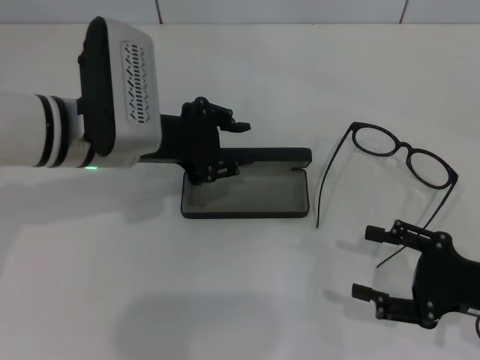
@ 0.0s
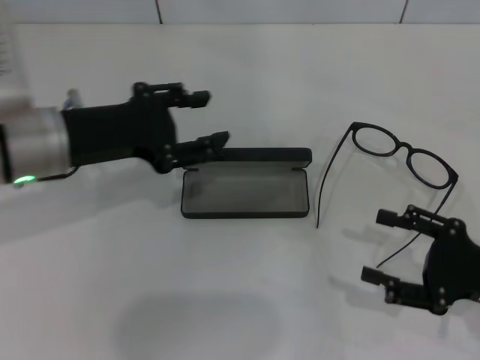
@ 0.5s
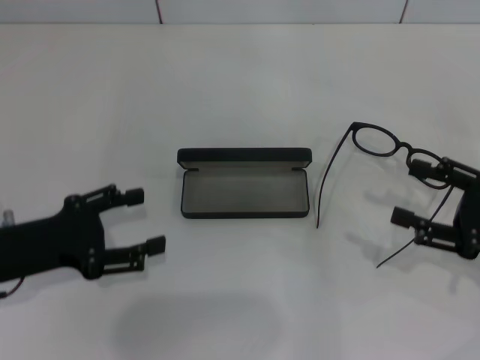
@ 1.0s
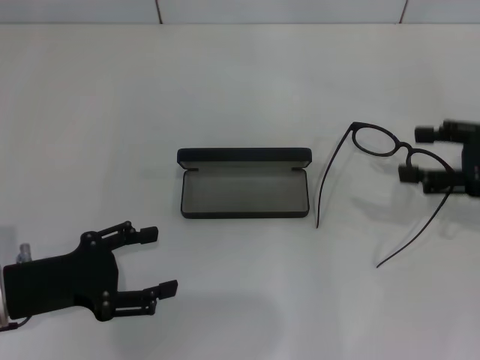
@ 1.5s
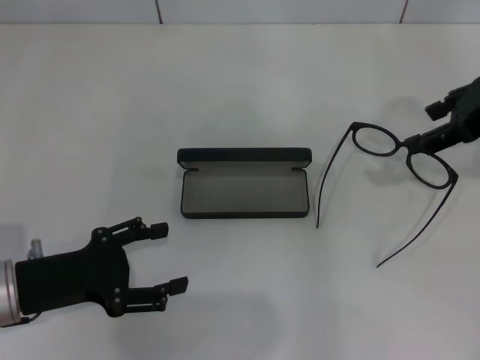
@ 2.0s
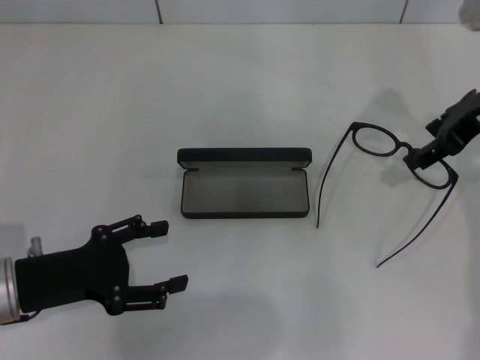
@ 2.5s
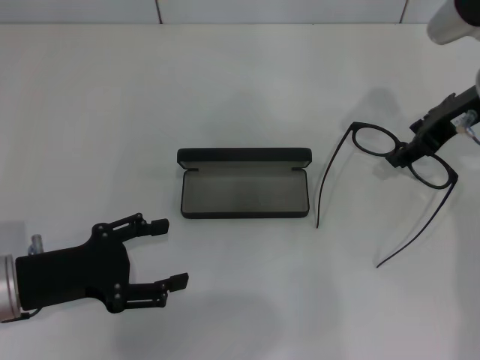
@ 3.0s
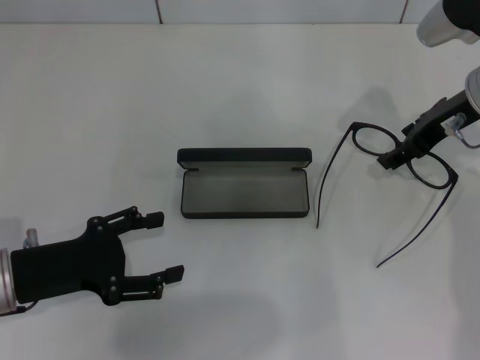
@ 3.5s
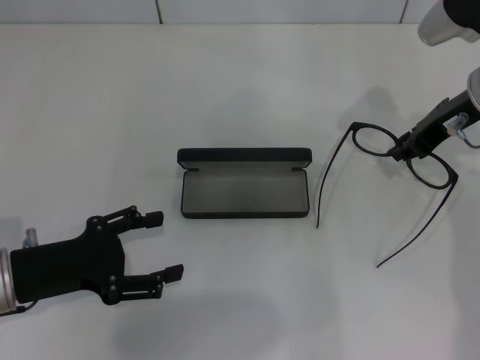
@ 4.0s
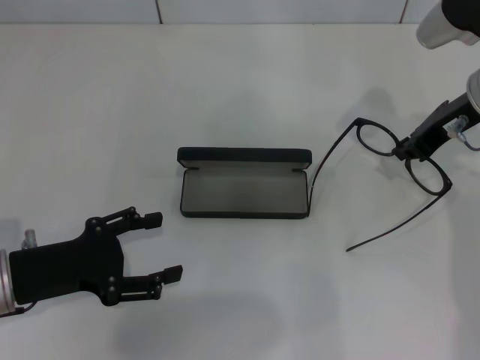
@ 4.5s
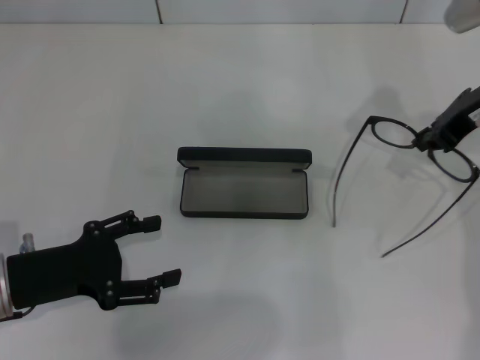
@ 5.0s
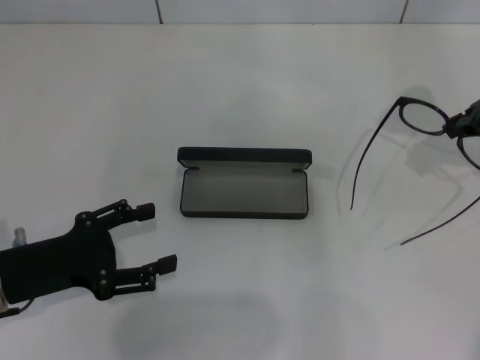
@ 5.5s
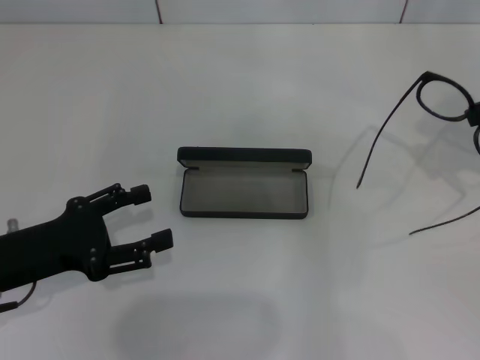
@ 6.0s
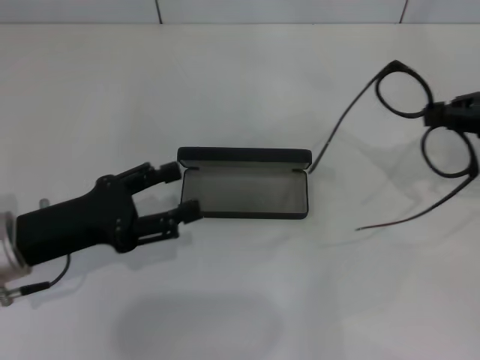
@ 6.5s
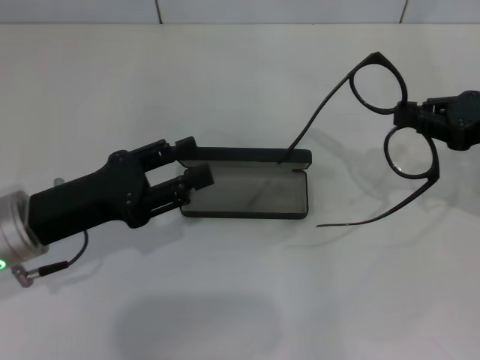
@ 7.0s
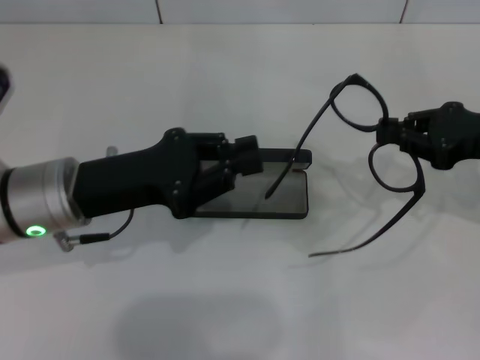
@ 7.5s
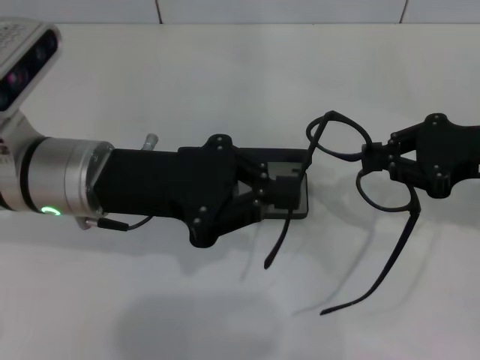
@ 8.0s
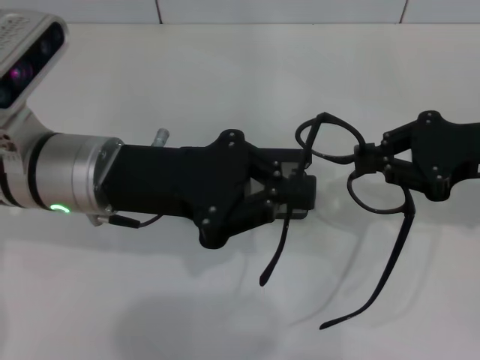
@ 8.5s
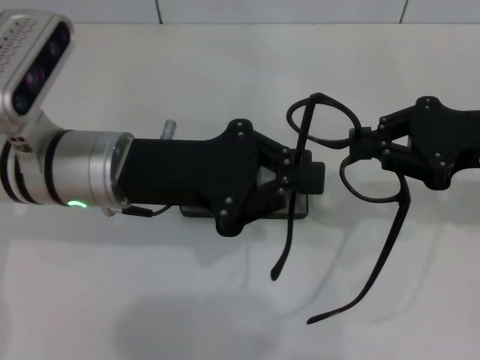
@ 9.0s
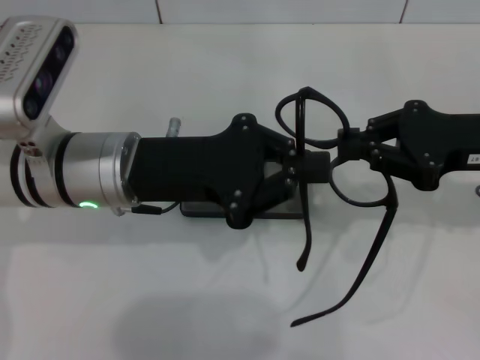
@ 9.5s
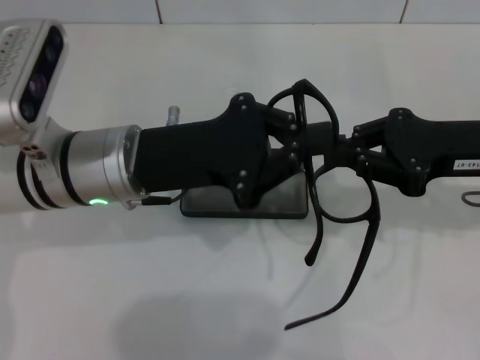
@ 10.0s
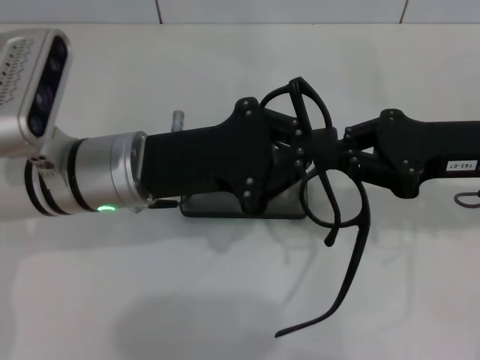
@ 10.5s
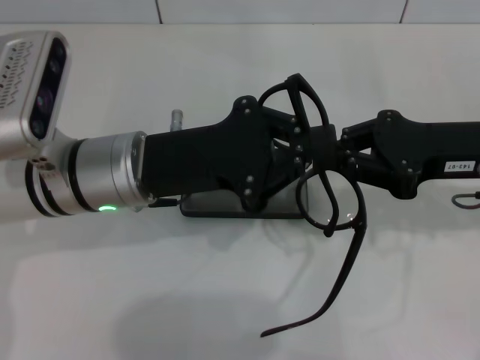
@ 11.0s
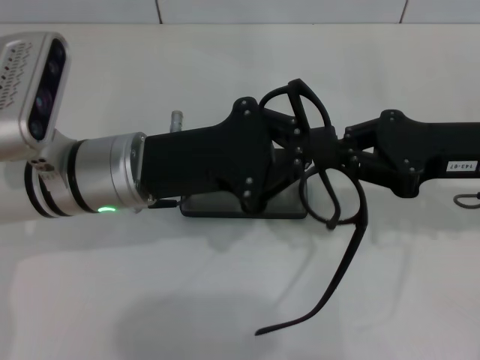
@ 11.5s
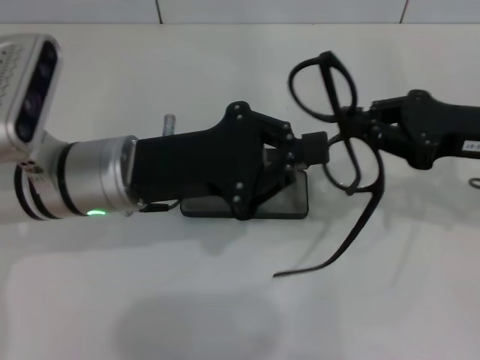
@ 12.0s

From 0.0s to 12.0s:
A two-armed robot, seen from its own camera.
Step, from 0.5s to 4.0s: Grab the eyeglass frame with your right hand.
From 0.0s to 2.0s: The right gripper goes about 25 cm upward and forward, while the left gripper shifts approximately 20 cm backward, to the left and downward, and opens up.
From 2.0s to 4.0s: The right gripper moves downward, approximately 5 cm, and closes its fingers.
From 4.0s to 6.0s: The right gripper is displaced to the right and upward by about 10 cm, and closes up.
From 6.0s to 8.0s: The left gripper heads to the right, forward and upward, covering some 15 cm, and closes its fingers; the right gripper shifts some 5 cm downward.
From 10.0s to 12.0s: There are only small adjustments of the grippers.

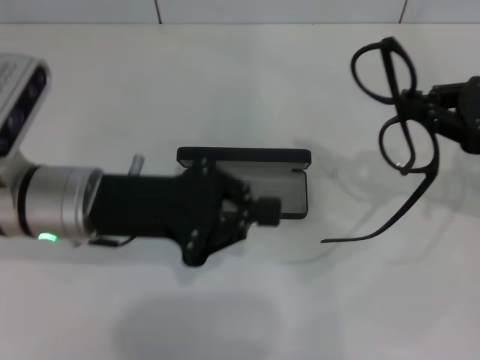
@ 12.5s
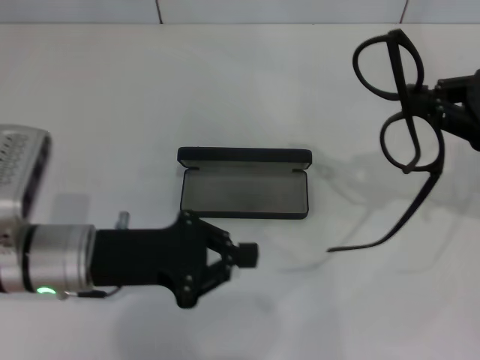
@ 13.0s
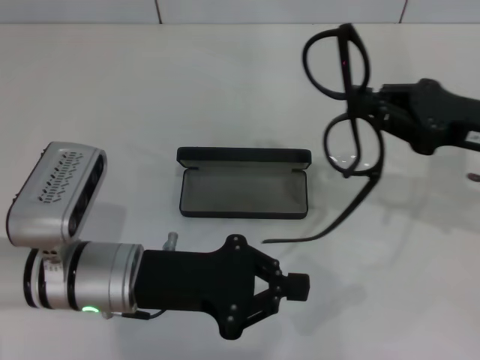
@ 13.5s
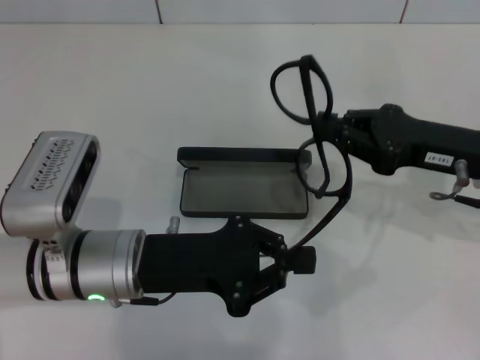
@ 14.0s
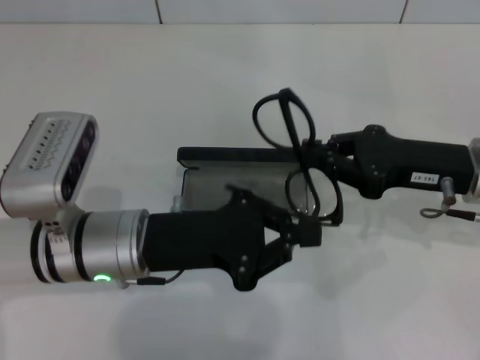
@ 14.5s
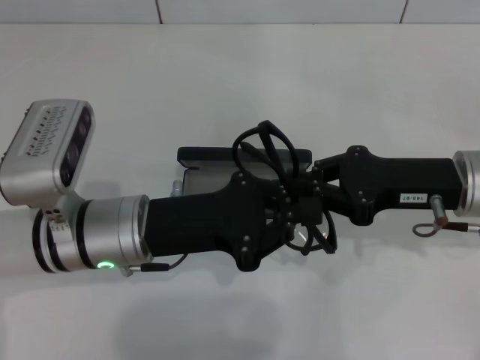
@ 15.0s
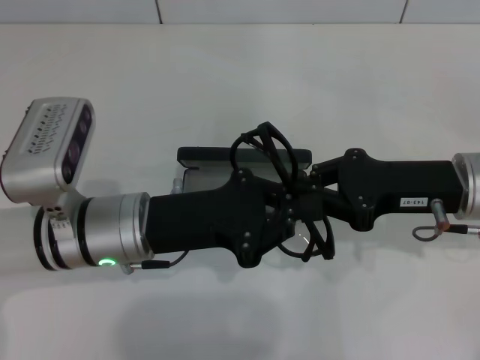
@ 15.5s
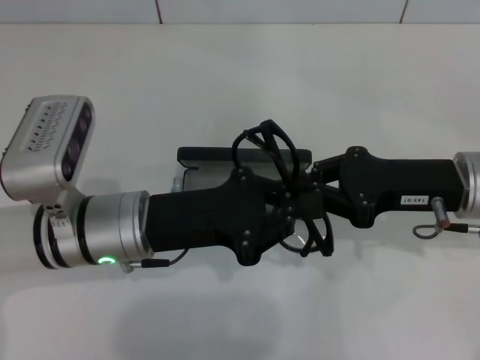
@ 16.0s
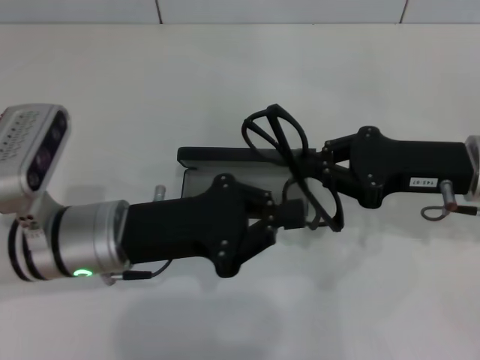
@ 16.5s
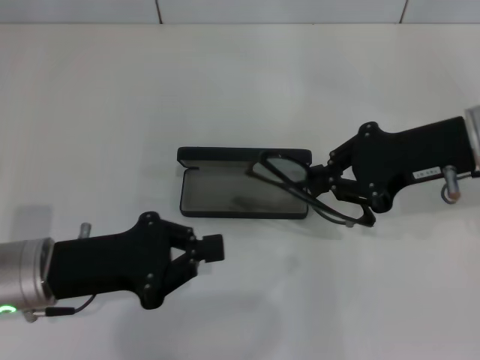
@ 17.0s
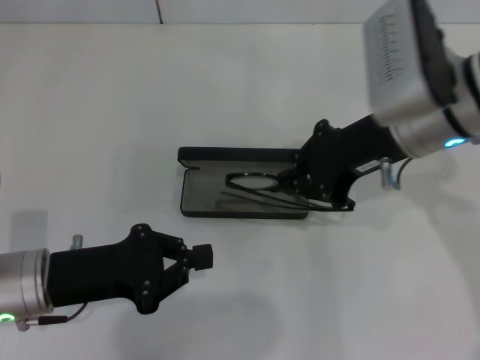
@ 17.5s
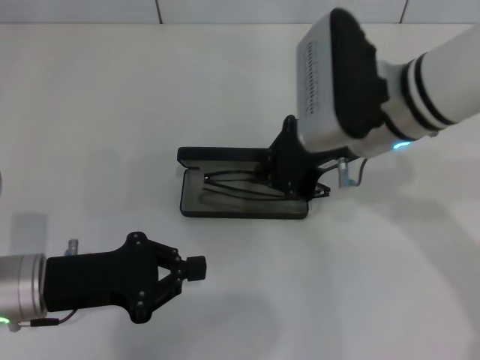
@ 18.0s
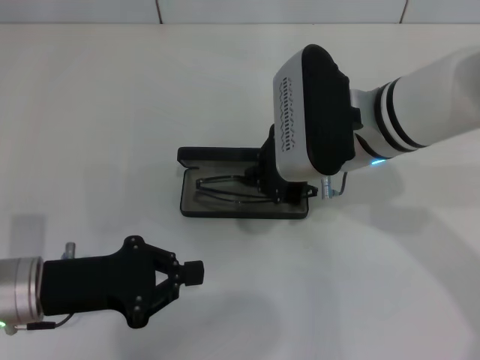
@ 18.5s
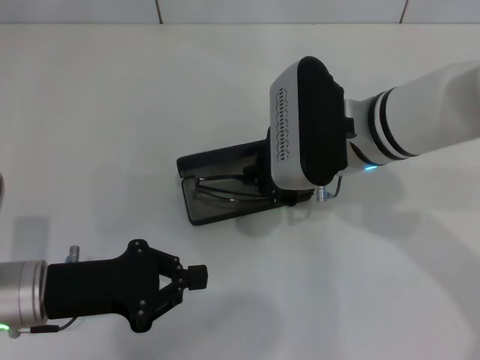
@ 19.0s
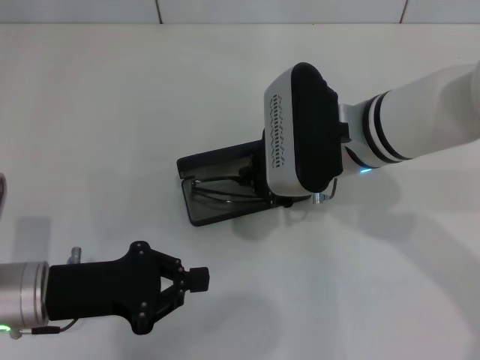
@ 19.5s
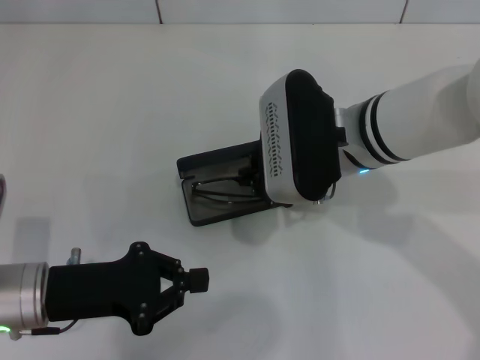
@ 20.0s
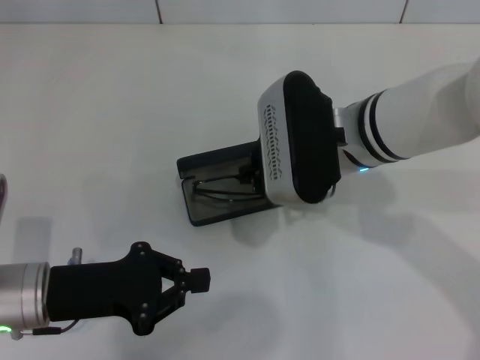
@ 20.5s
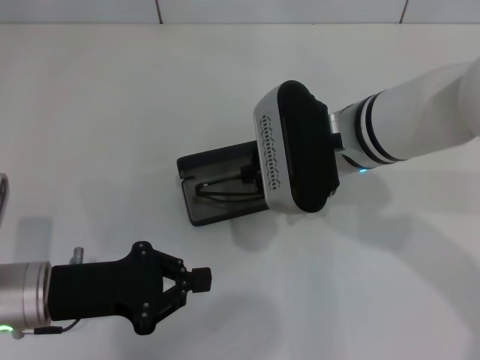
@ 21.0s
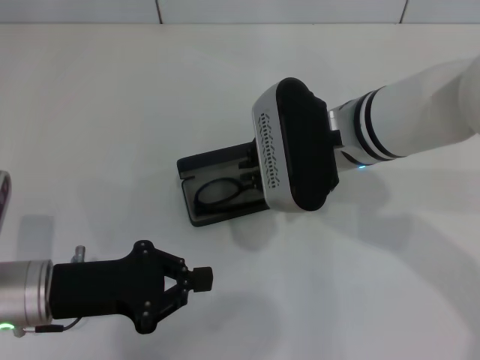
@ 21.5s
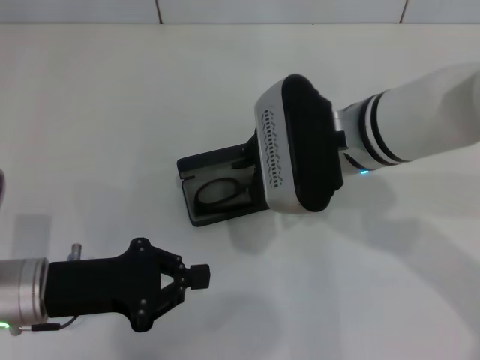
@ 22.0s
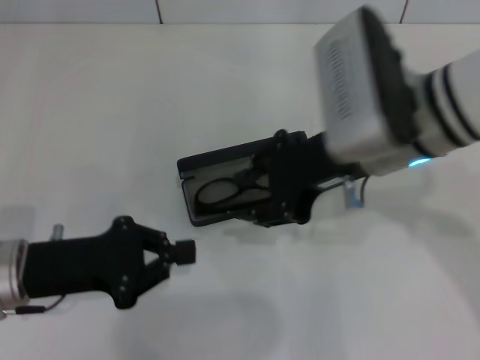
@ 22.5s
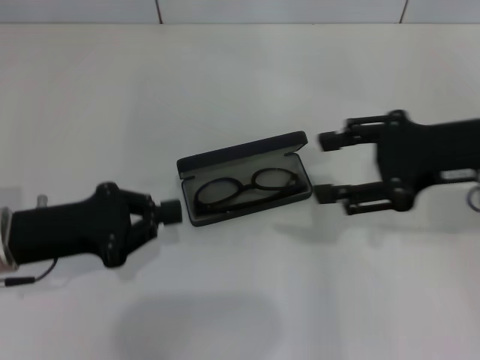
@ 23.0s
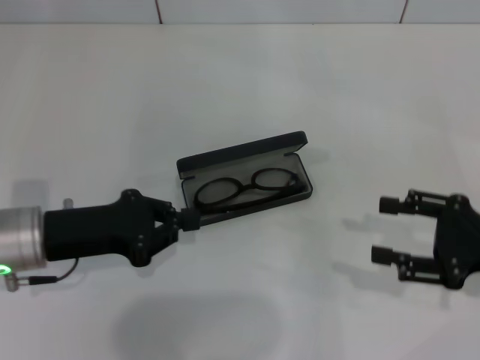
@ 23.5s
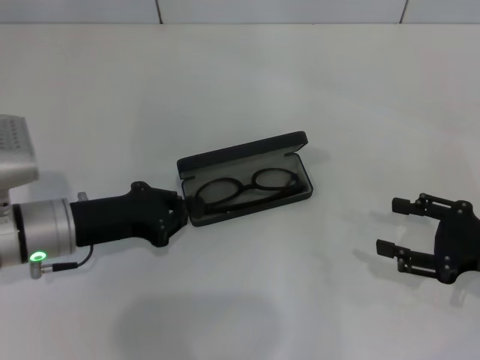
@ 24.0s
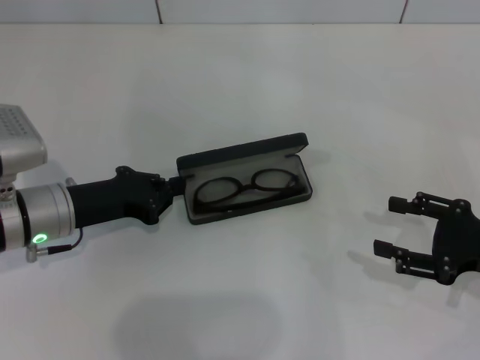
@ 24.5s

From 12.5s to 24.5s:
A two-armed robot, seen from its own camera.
Step, from 12.5s to 15.5s: Fold the frame with your left hand.
Step, from 16.0s to 21.5s: Put the glasses into the case with your right hand.
From 12.5s to 14.5s: The right gripper travels to the left by approximately 10 cm. Meanwhile the left gripper moves some 5 cm.
From 14.5s to 16.5s: The grippers stay close to where they were, moving slightly.
From 16.5s to 18.5s: The right gripper shifts approximately 15 cm to the left, while the left gripper travels to the left by some 10 cm.
From 18.5s to 20.5s: The grippers stay close to where they were, moving slightly.
From 20.5s to 22.5s: The right gripper shifts by about 5 cm, and opens its fingers.
From 22.5s to 24.5s: The left gripper moves forward, roughly 5 cm; the right gripper travels to the right and downward by about 25 cm, and opens its fingers.

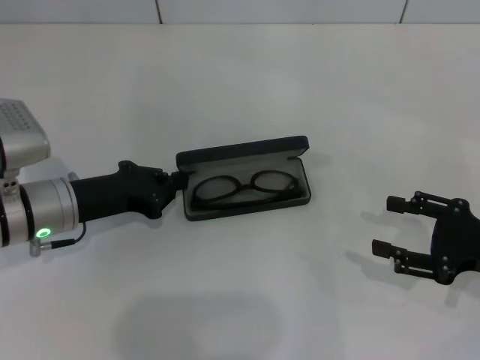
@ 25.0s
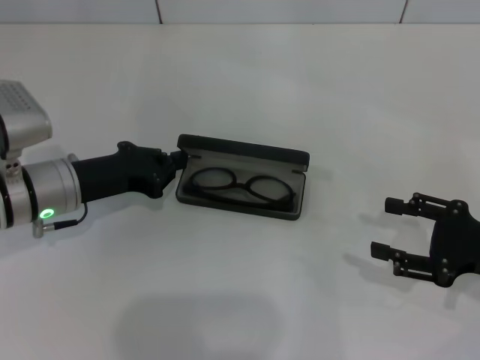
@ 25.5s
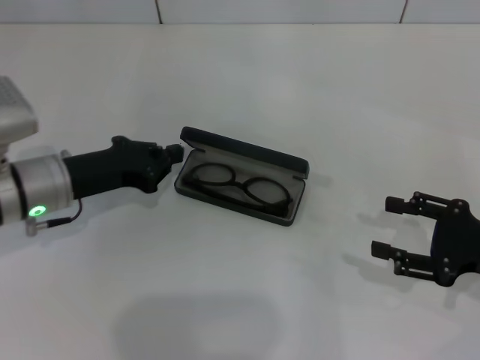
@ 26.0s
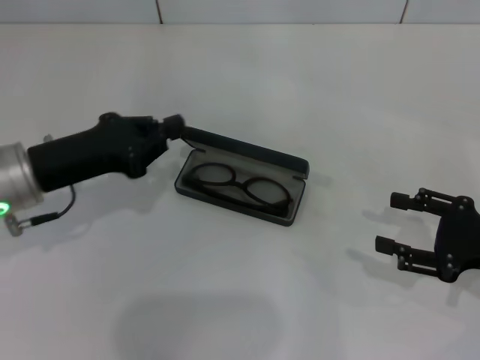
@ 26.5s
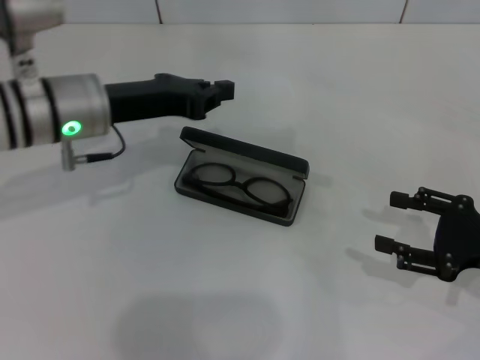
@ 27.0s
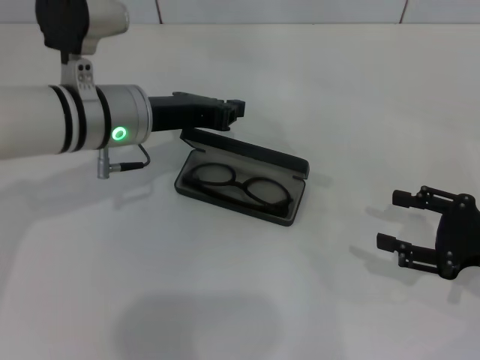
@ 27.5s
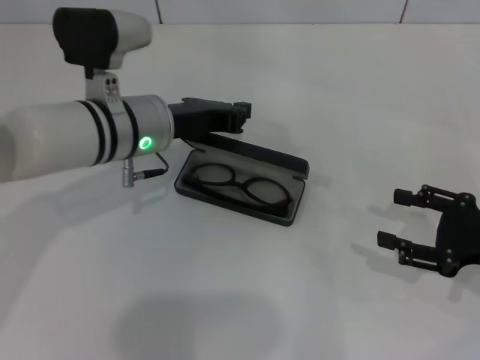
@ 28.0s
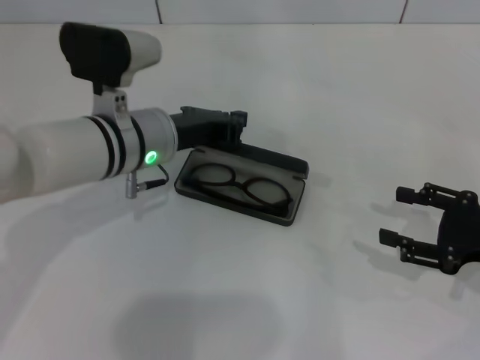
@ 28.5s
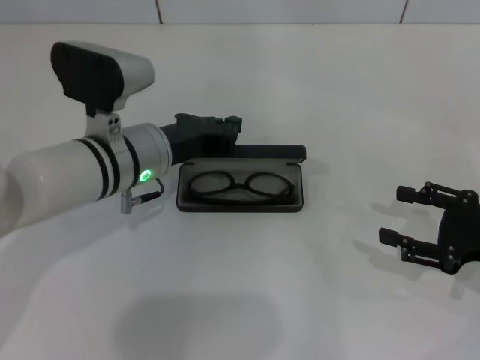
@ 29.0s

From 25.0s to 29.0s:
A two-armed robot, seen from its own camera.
From 25.0s to 27.0s: The left gripper moves upward and forward, approximately 10 cm.
From 27.0s to 29.0s: The left gripper heads to the right, covering roughly 5 cm.
